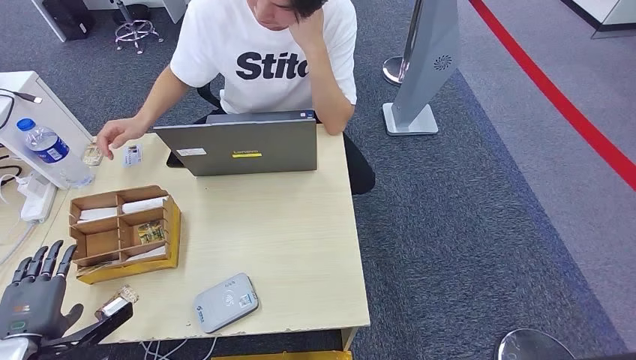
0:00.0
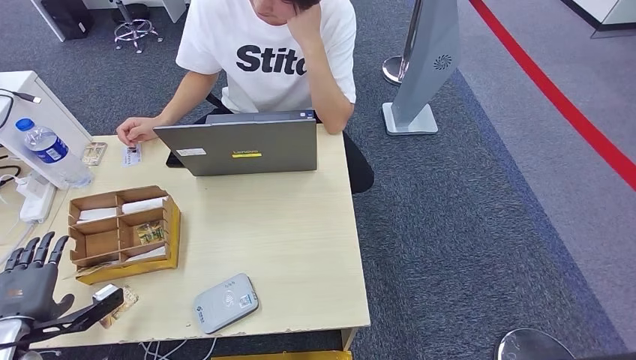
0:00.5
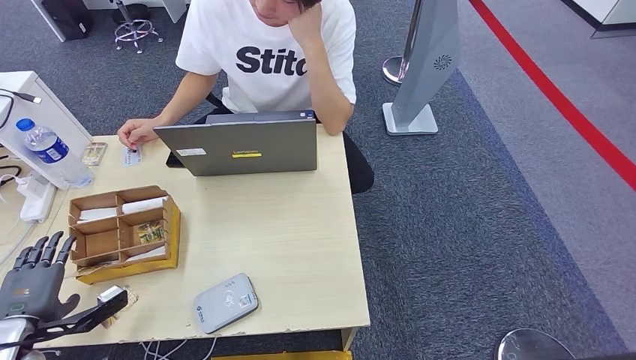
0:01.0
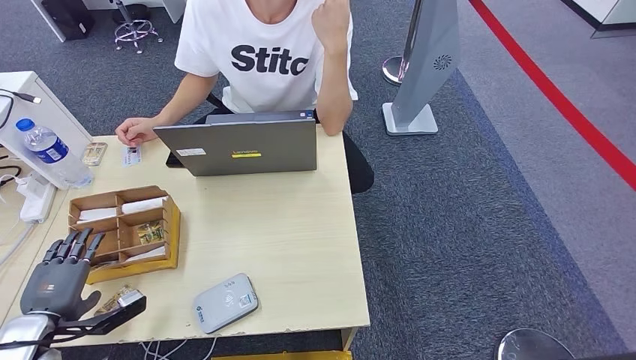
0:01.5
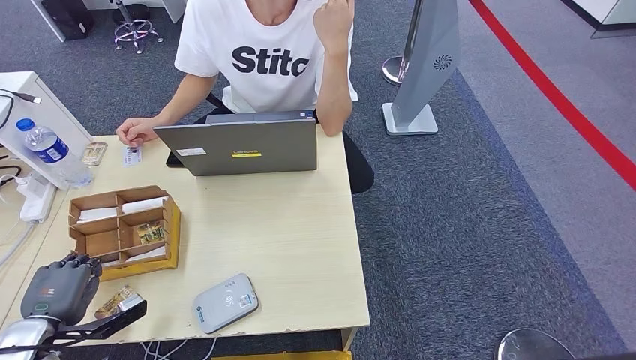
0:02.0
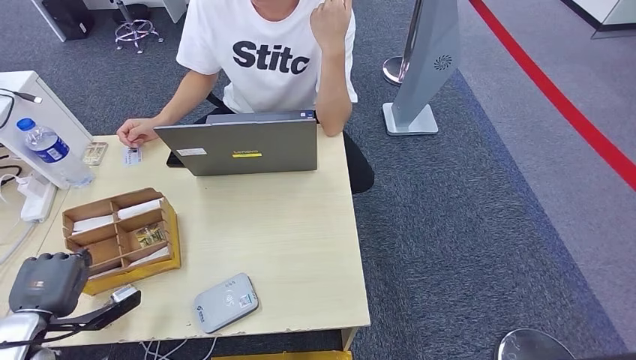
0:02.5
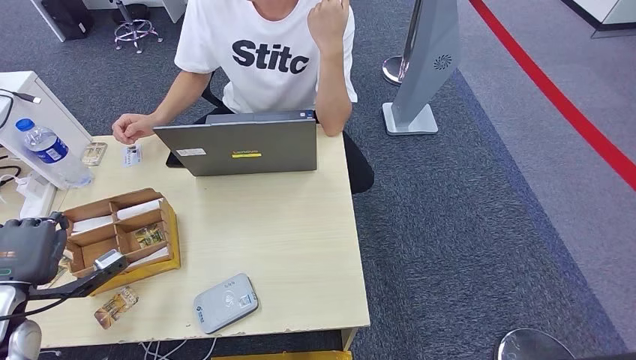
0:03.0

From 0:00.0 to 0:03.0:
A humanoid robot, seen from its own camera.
Step, from 0:01.5 to 0:03.0: Pick up the room key from the key card box.
From 0:00.0 to 0:01.5: The hands move only a little.
From 0:01.5 to 0:03.0: The left hand heads upward, covering approximately 5 cm.

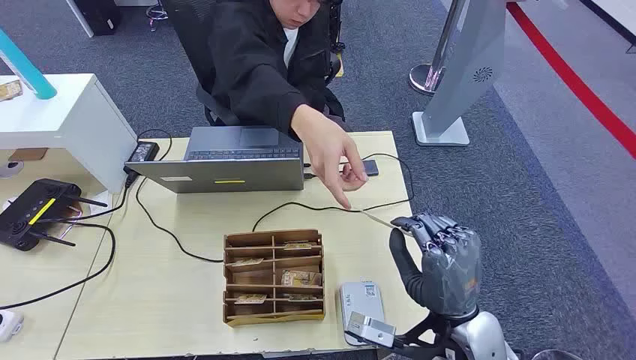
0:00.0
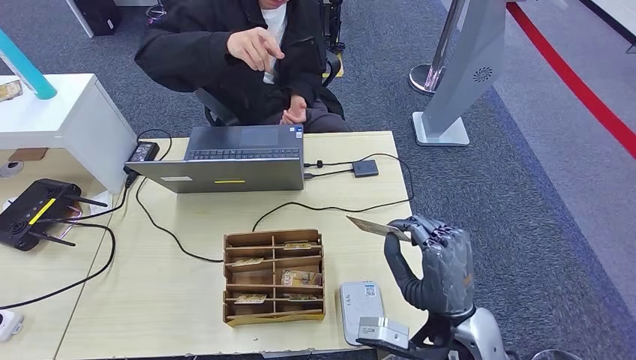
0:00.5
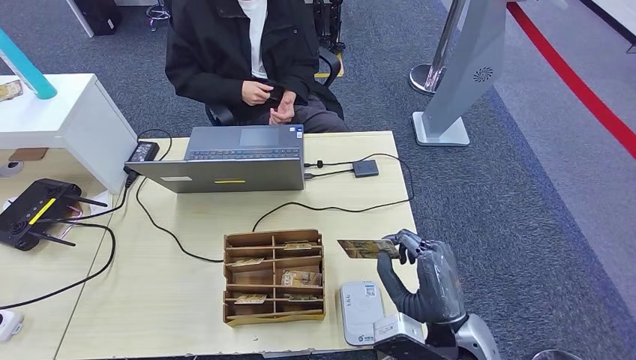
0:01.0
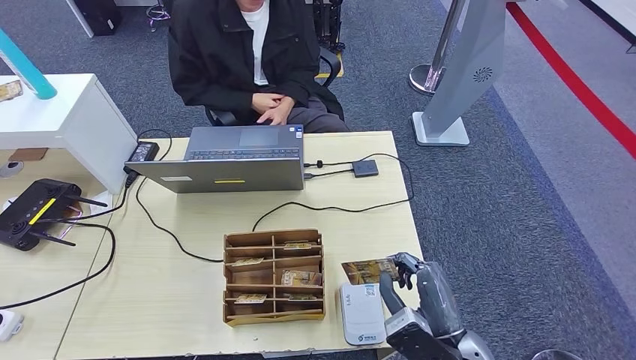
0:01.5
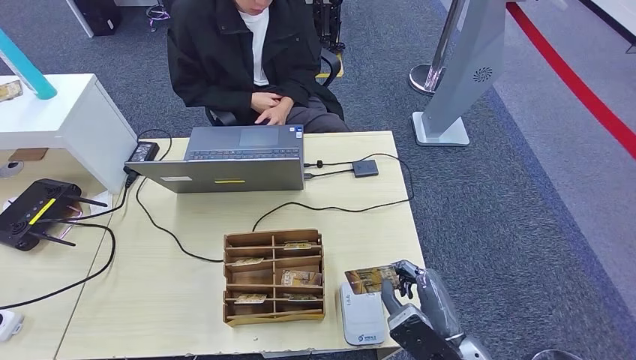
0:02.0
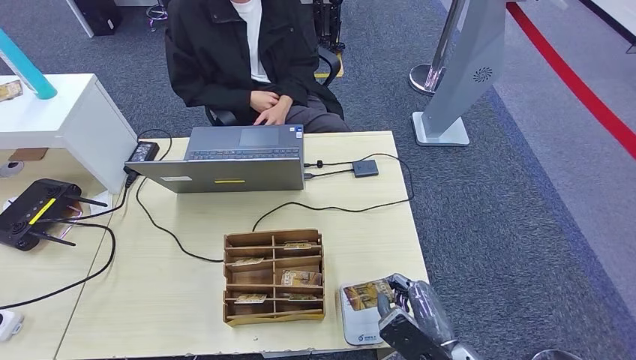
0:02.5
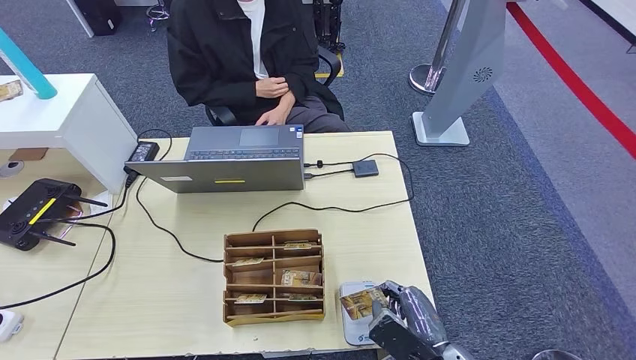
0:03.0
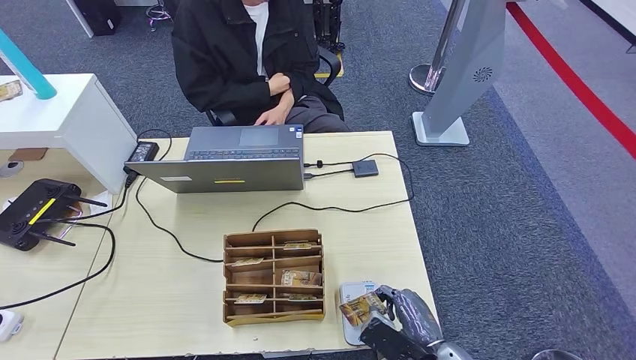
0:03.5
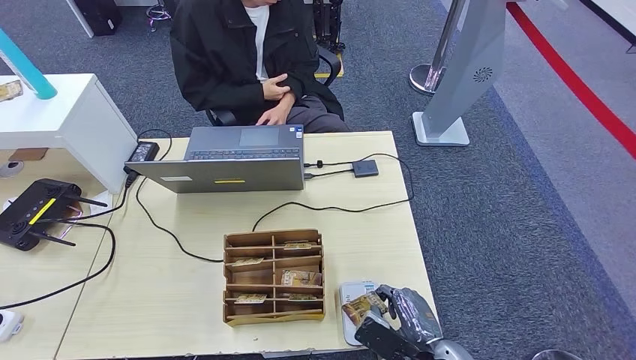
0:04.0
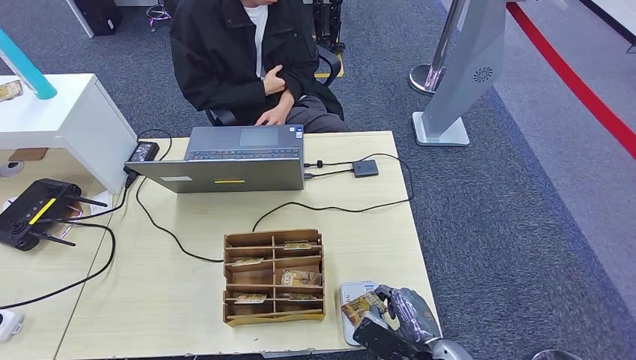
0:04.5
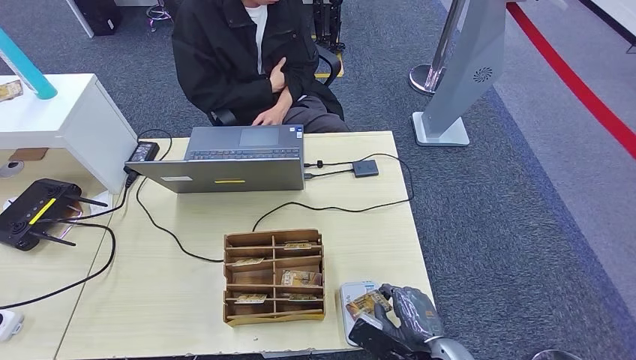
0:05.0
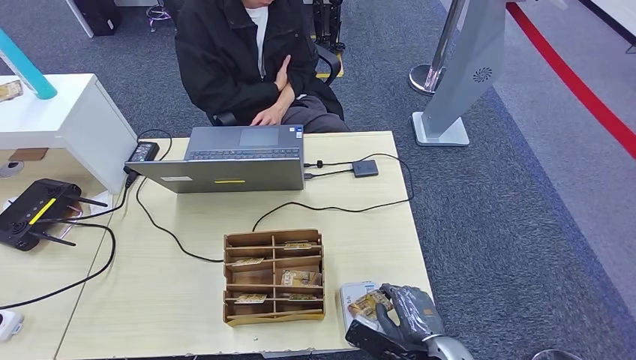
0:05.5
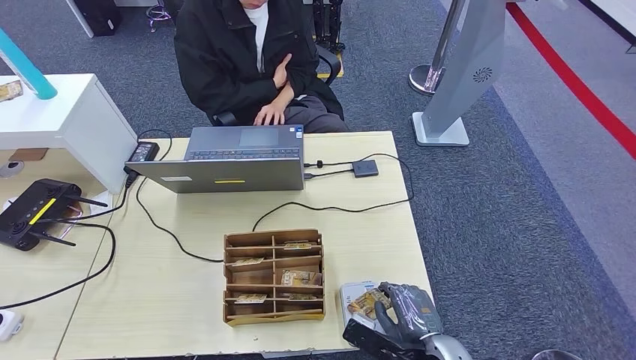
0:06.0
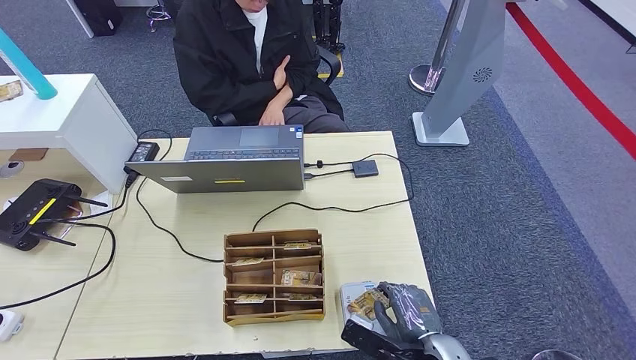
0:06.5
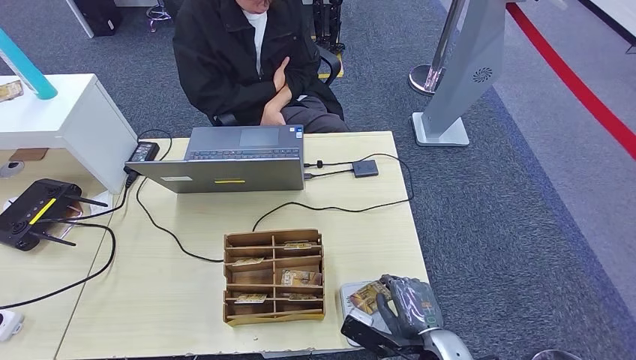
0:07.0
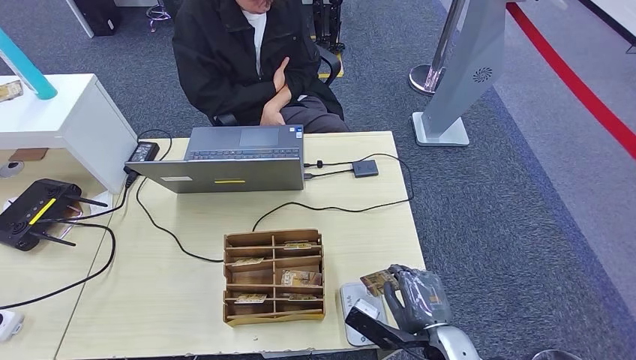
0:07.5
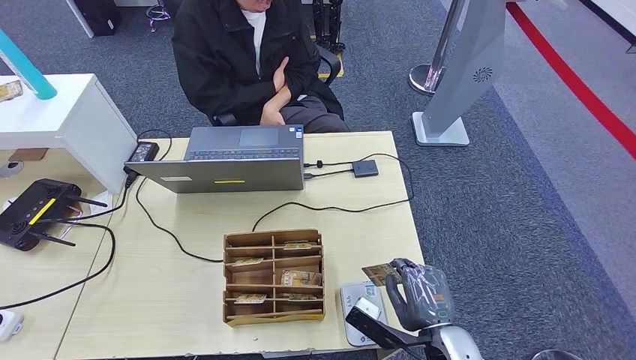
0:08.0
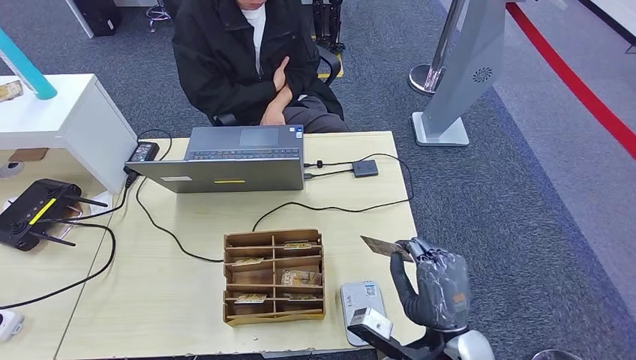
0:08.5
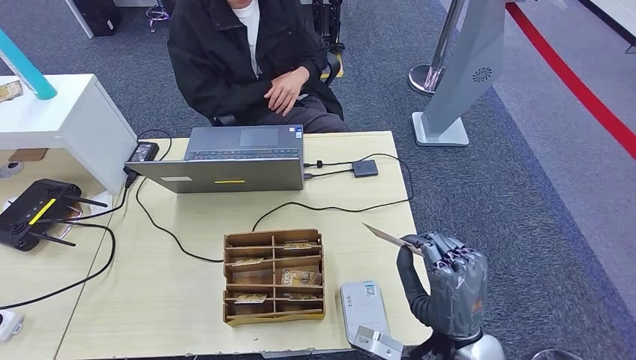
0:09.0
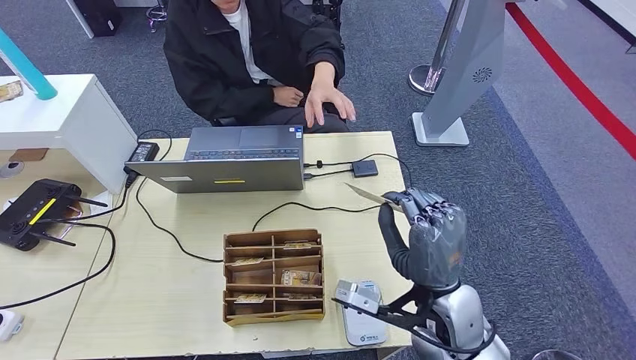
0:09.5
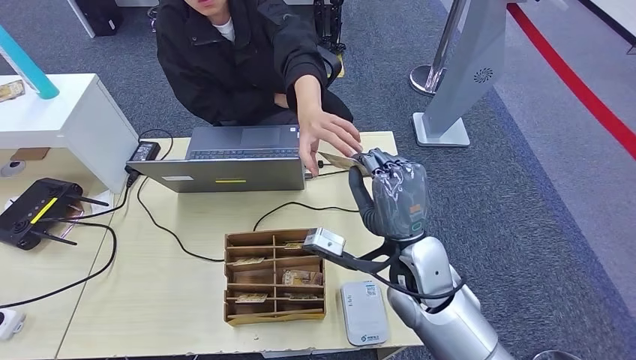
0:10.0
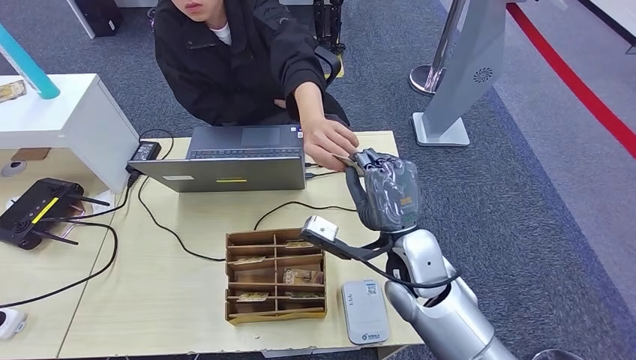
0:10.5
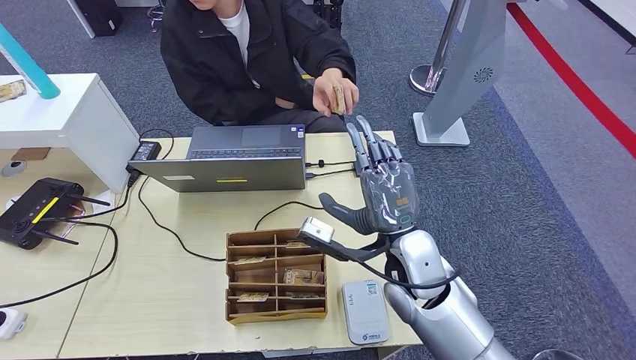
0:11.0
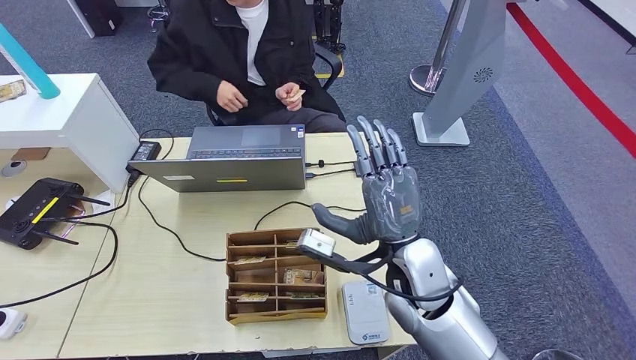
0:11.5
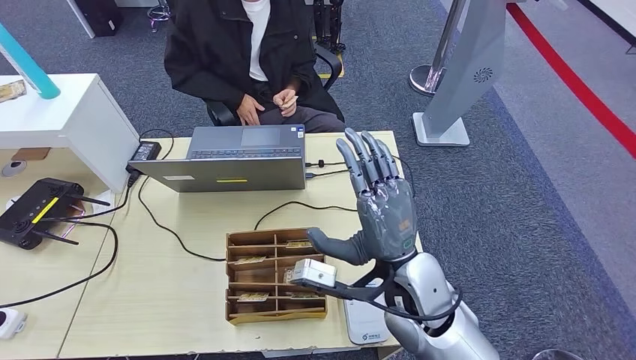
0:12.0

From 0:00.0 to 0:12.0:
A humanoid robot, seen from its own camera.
Step, from 0:00.0 to 0:01.5: Take the ID card from the person's hand.
Step, from 0:02.0 to 0:04.5: Place the ID card on the card reader.
Step, from 0:05.0 to 0:10.5: Hand the ID card to the person.
From 0:02.0 to 0:04.0: The right hand shifts some 5 cm downward.
From 0:04.0 to 0:06.0: The hands move only a little.
From 0:06.0 to 0:08.0: The hands make only small movements.
From 0:08.0 to 0:10.0: The left hand is displaced to the left and backward by some 15 cm, while the right hand travels upward, forward and to the left by about 20 cm.
From 0:10.0 to 0:12.0: The left hand heads to the right and forward, covering approximately 15 cm.

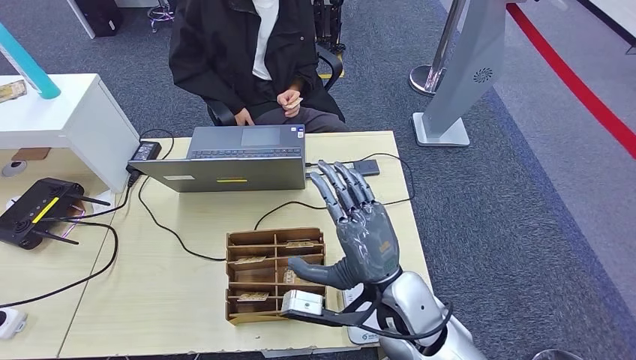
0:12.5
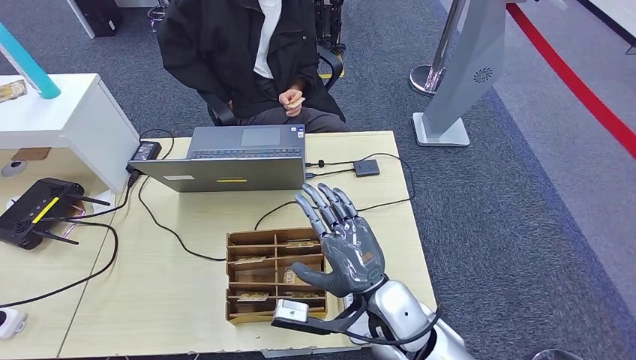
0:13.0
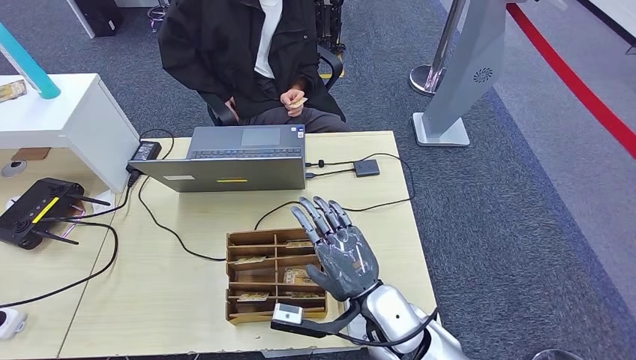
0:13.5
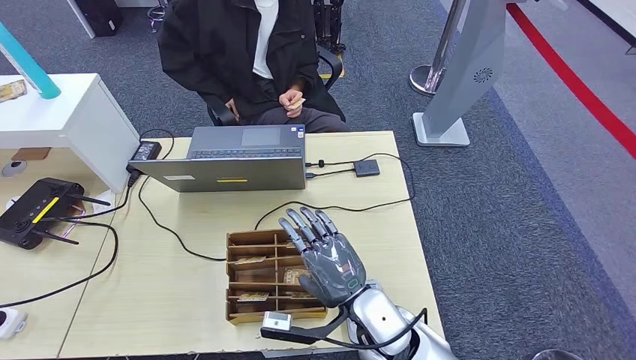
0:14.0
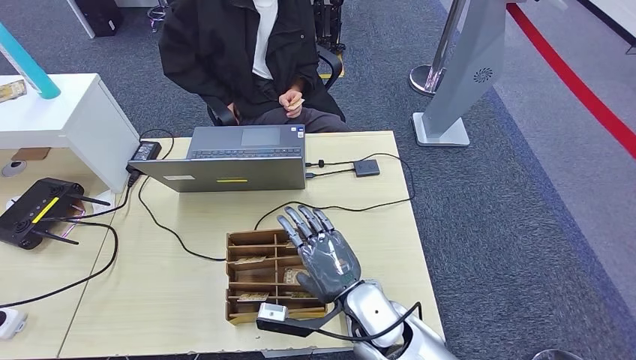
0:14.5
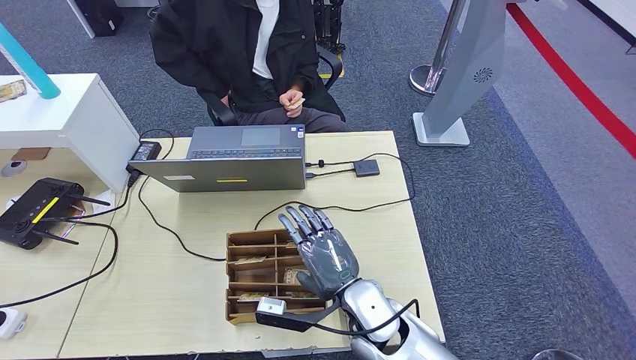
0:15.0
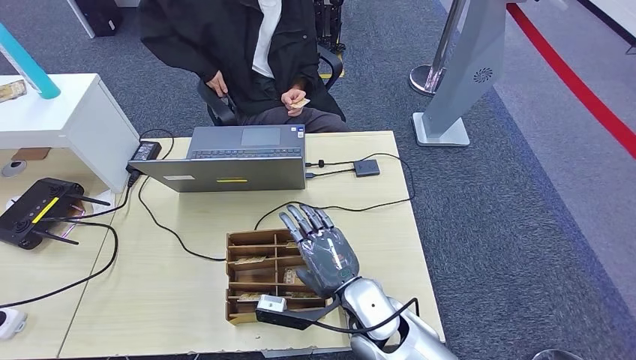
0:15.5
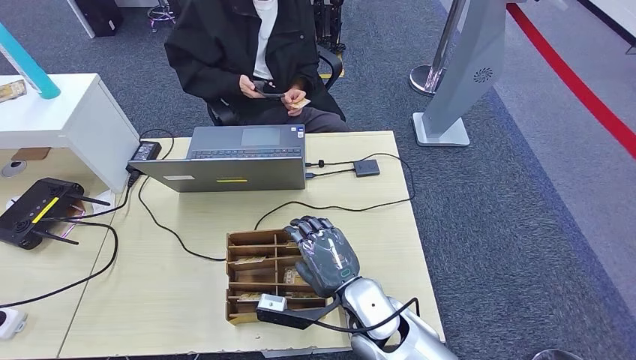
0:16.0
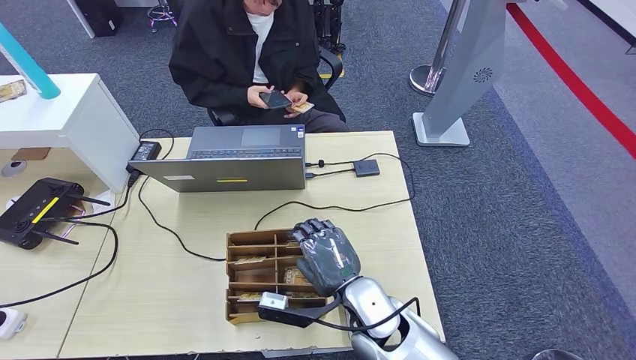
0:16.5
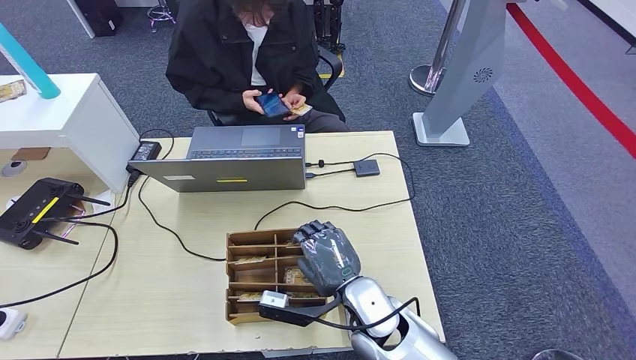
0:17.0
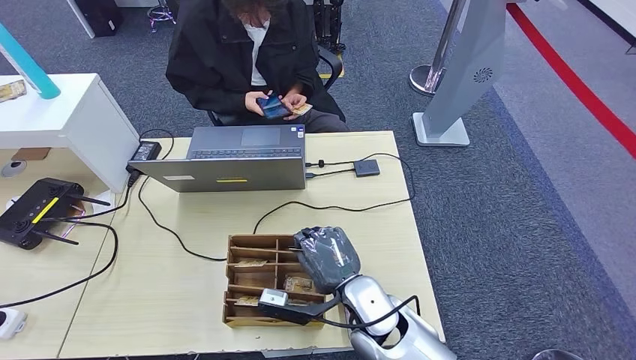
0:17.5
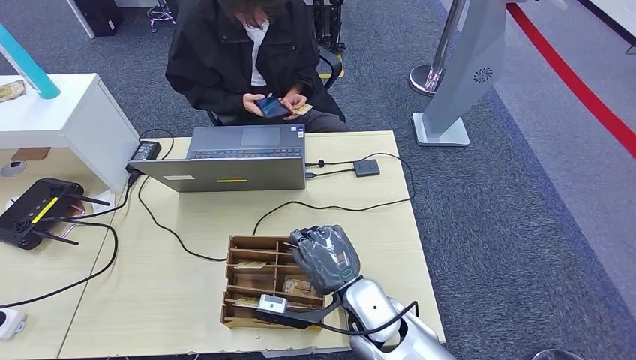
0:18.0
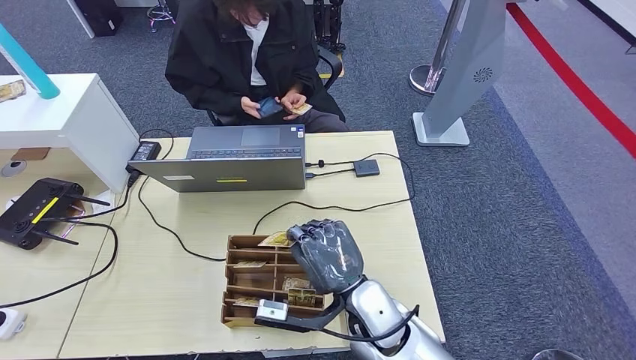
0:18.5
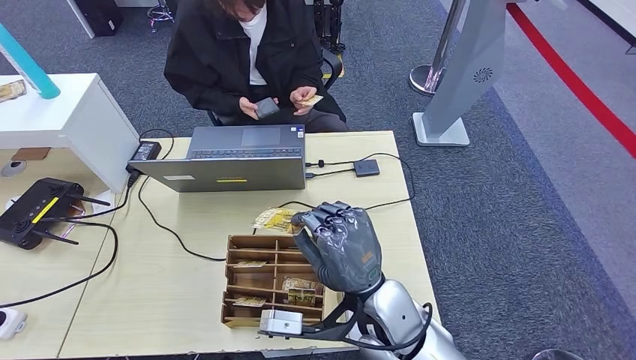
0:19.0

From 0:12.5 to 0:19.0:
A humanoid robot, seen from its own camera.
Step, from 0:12.5 to 0:14.5: Pick up the room key from the key card box.
From 0:12.5 to 0:14.5: The right hand heads downward, covering roughly 5 cm.
From 0:14.5 to 0:17.0: The hands make only small movements.
From 0:17.0 to 0:19.0: The right hand goes about 5 cm upward.
